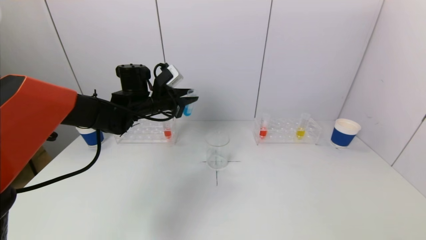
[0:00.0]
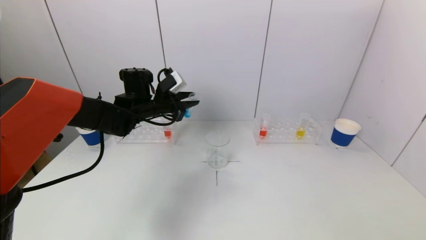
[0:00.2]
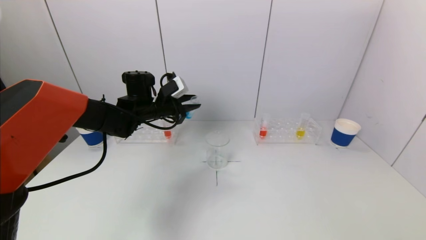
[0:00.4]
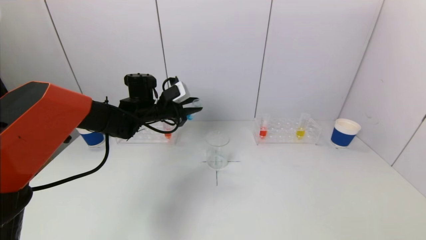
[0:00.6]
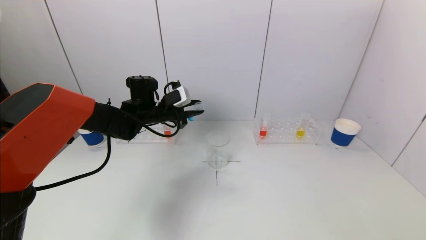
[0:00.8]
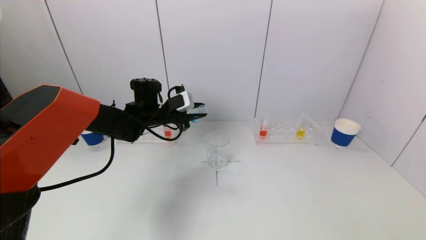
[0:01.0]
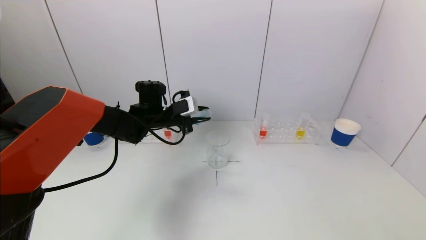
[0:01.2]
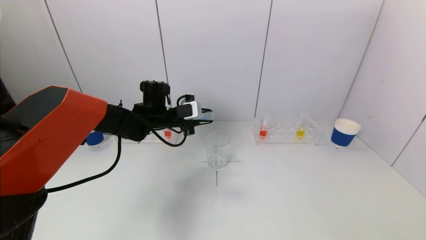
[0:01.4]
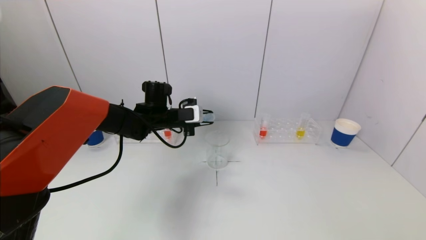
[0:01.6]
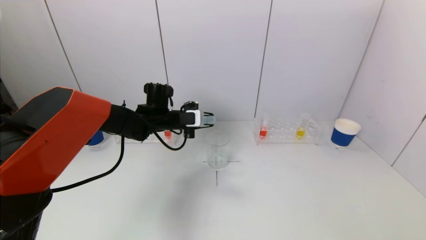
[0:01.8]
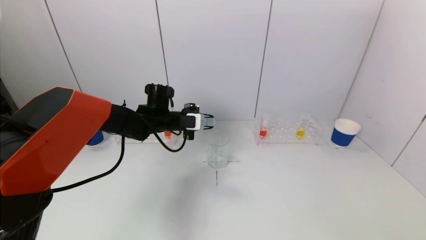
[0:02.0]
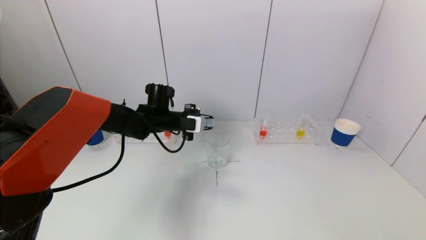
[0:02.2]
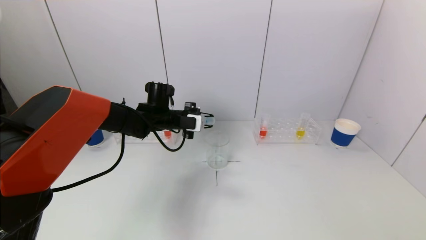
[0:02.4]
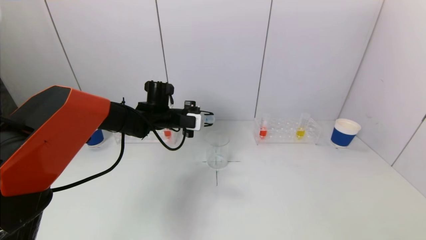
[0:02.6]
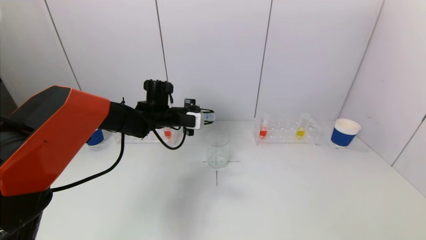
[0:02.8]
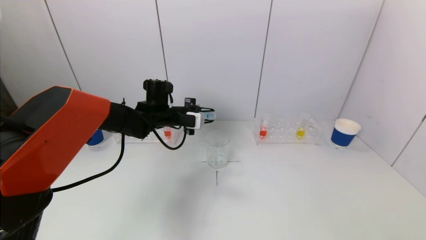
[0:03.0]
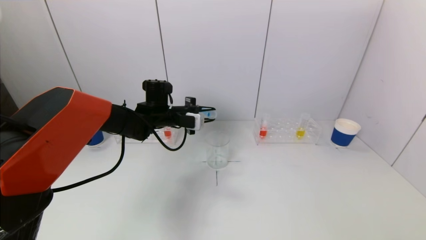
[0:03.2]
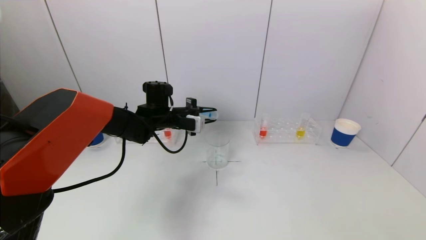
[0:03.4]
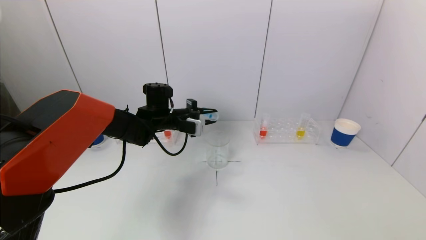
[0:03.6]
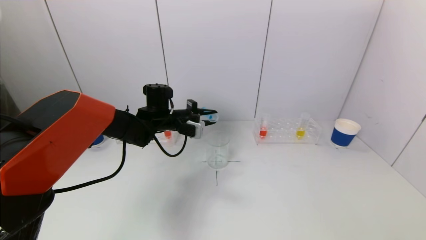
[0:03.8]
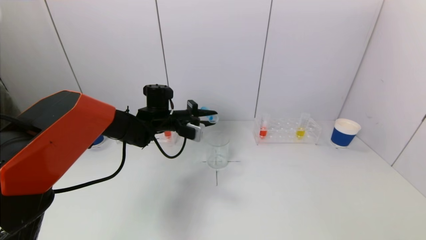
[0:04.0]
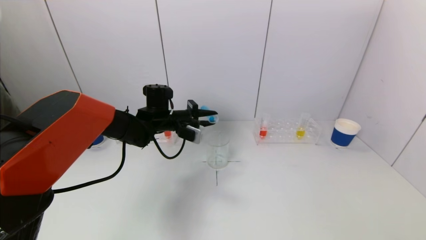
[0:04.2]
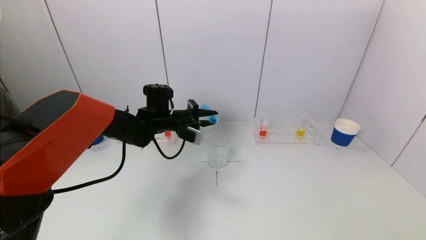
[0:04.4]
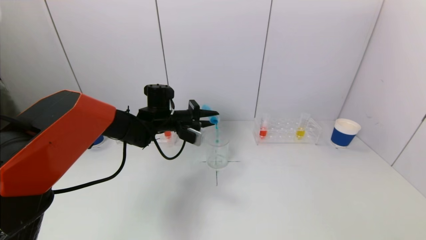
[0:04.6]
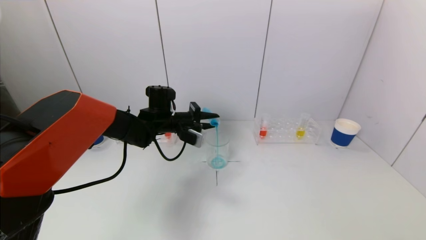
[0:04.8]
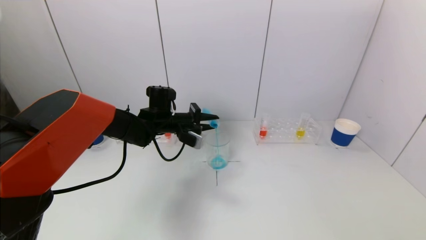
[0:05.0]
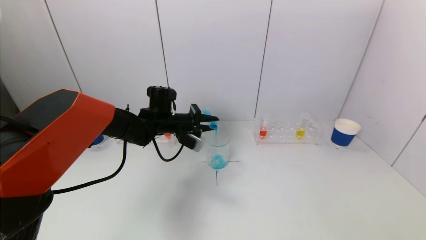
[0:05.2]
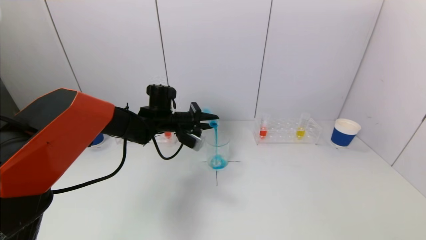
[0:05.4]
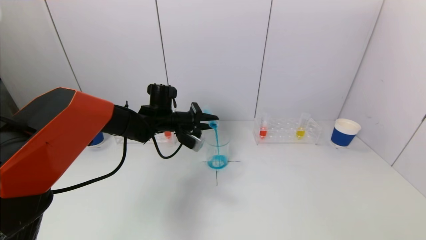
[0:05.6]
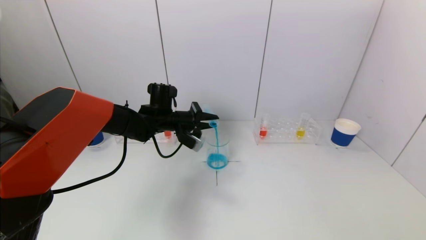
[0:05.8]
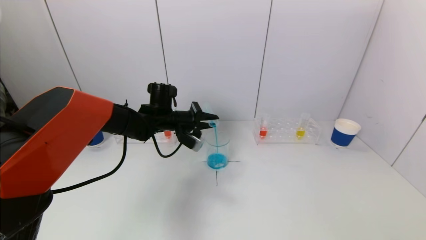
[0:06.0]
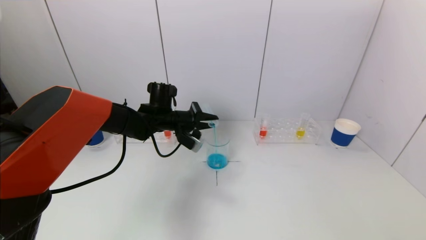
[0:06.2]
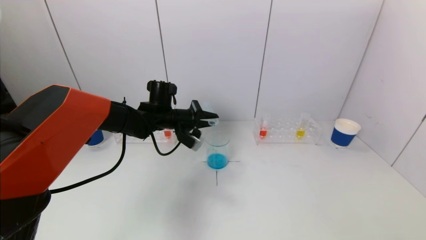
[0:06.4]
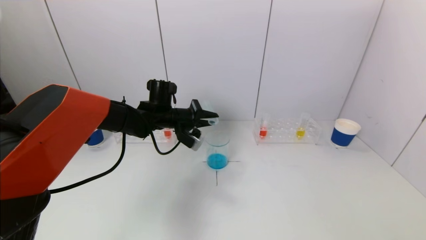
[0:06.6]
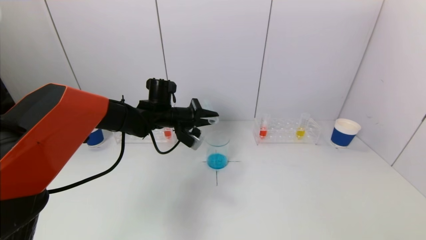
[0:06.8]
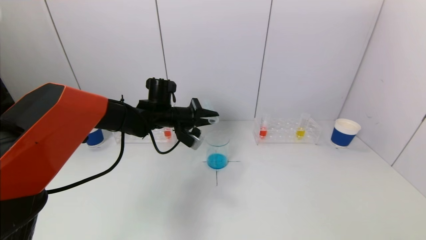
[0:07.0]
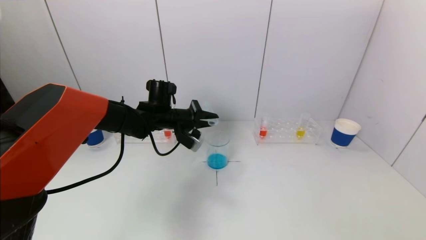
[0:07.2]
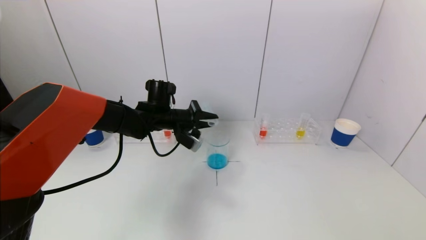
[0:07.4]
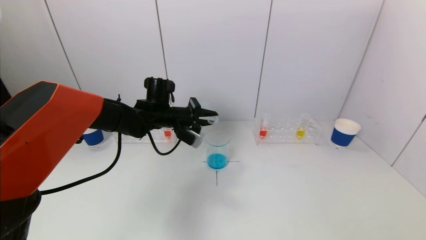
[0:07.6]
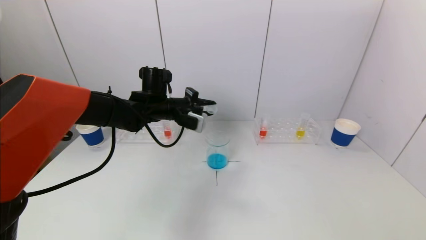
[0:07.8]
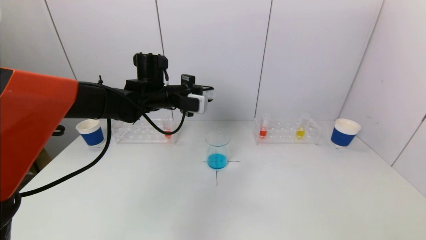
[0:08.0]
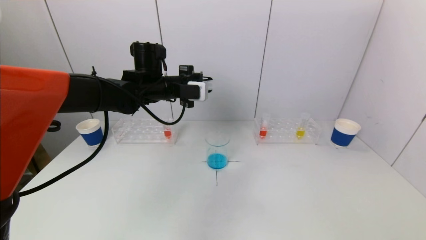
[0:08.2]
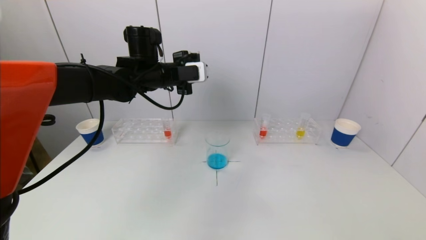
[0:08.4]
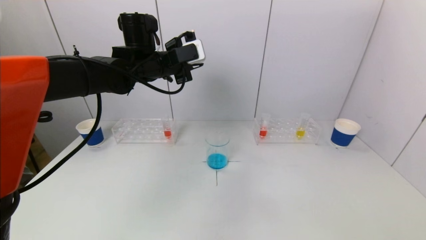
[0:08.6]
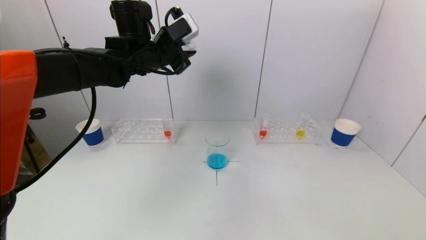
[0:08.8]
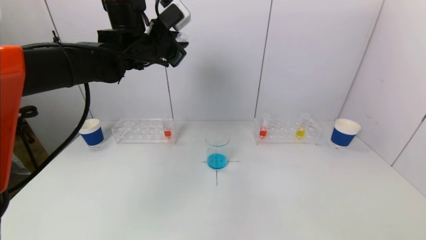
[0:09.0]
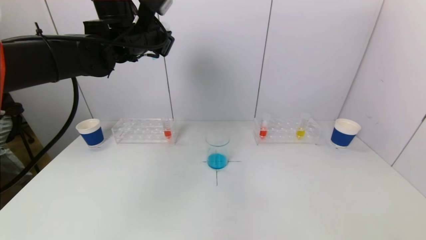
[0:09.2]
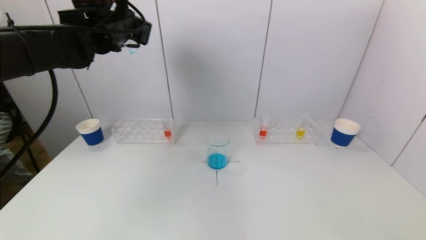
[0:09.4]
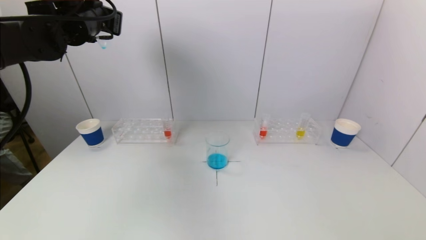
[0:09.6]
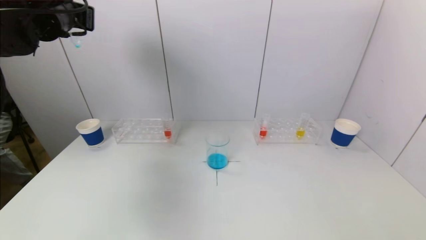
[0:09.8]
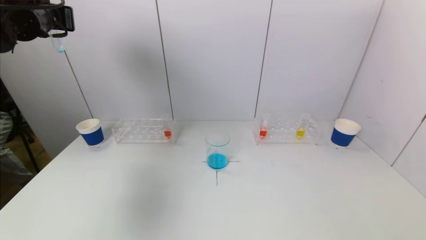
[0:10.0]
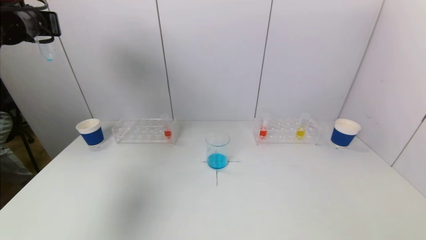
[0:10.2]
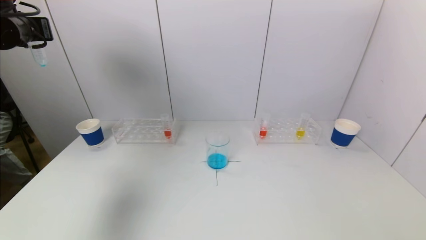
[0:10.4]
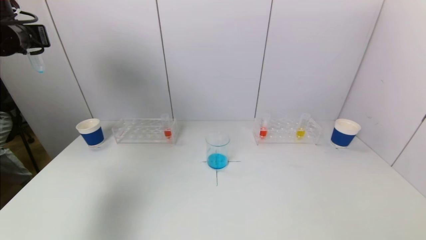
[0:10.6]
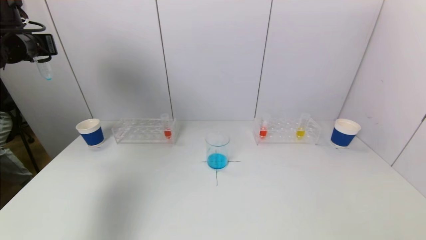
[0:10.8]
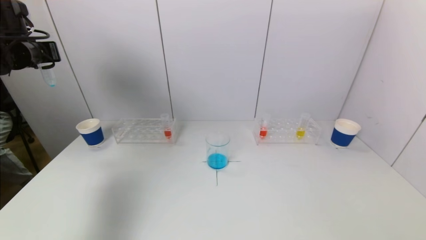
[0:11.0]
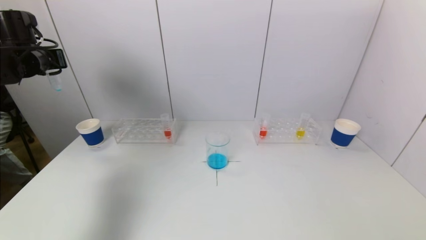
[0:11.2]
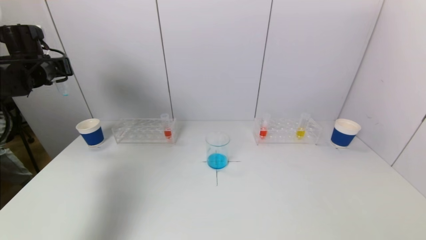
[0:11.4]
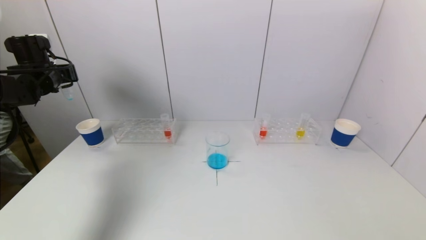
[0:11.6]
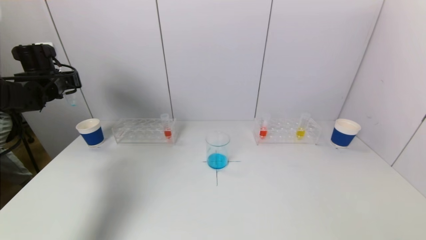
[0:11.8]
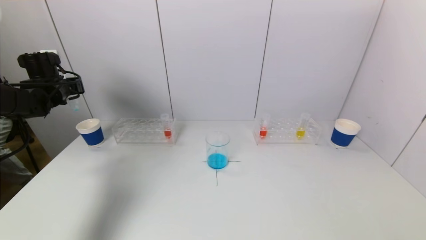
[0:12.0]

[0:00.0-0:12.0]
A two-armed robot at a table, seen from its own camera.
Task of the whole recording: pick up a test tube with pigment on left test tube rack and a test tube with pigment on right test tube rack by grippers and pour them into the beaker.
Step, 0:00.0 to 0:06.8: Pour the blue reagent into the graduated cylinder with the left gripper.
0:00.0 to 0:01.6: The left gripper shifts by roughly 5 cm.
0:01.6 to 0:03.0: The grippers make only small movements.
0:03.0 to 0:04.4: The grippers move only a little.
0:04.4 to 0:07.6: The grippers move only a little.
0:07.6 to 0:09.0: The left gripper shifts about 15 cm upward.
0:09.0 to 0:10.4: The left gripper moves to the left, some 25 cm.
0:10.4 to 0:12.0: The left gripper moves downward and forward, some 15 cm.

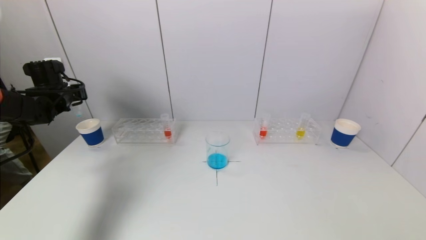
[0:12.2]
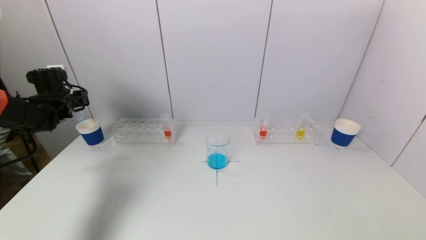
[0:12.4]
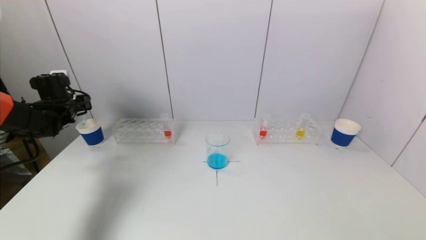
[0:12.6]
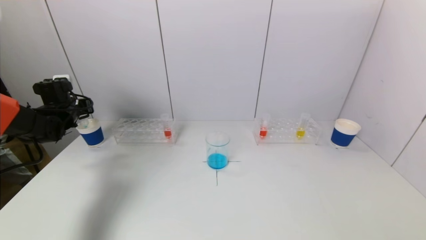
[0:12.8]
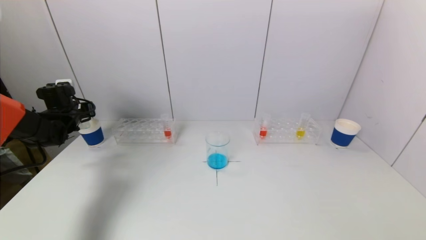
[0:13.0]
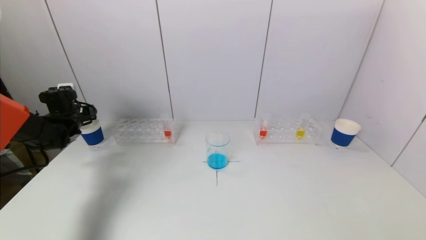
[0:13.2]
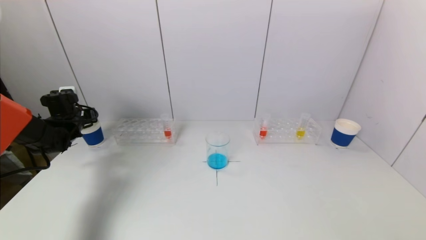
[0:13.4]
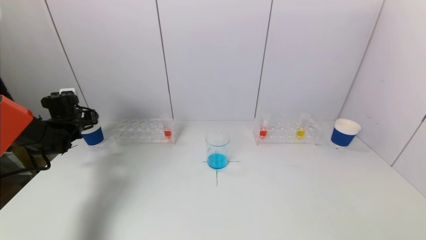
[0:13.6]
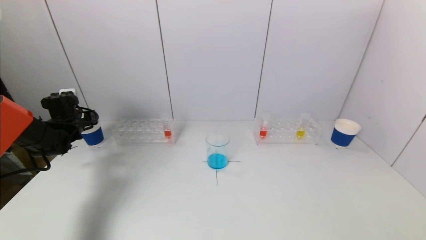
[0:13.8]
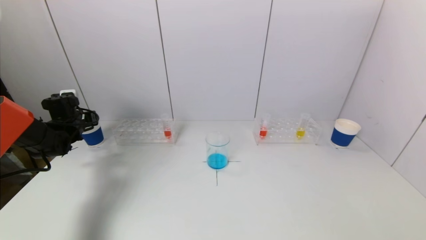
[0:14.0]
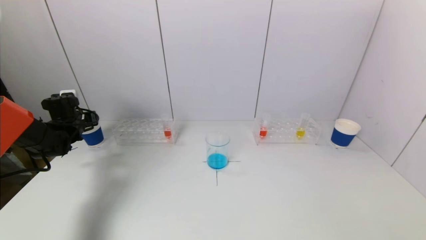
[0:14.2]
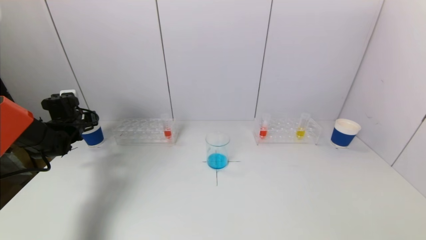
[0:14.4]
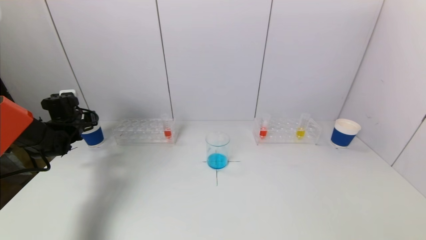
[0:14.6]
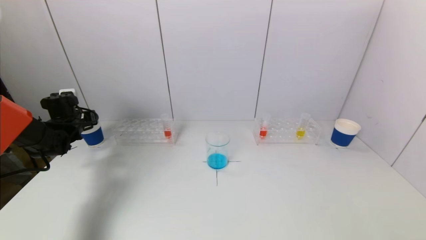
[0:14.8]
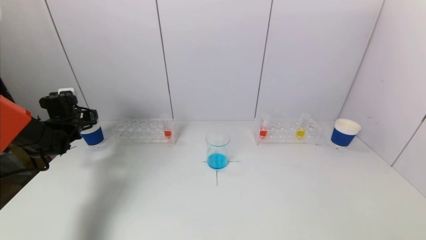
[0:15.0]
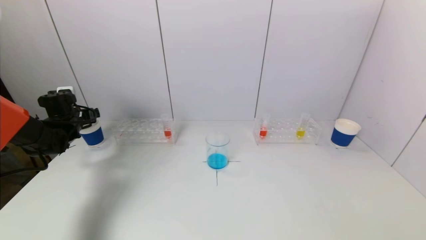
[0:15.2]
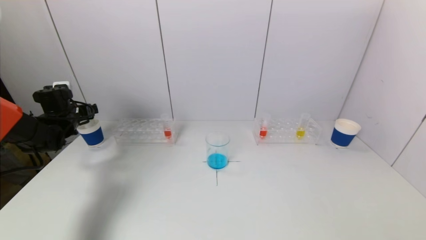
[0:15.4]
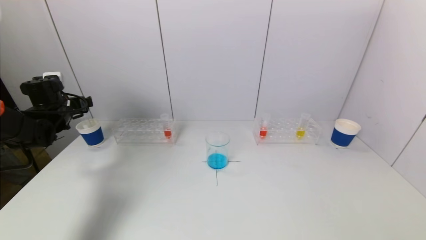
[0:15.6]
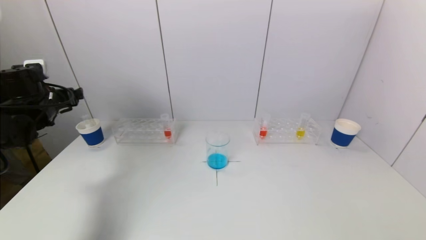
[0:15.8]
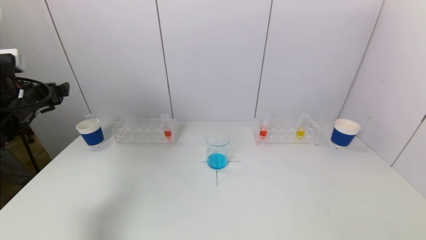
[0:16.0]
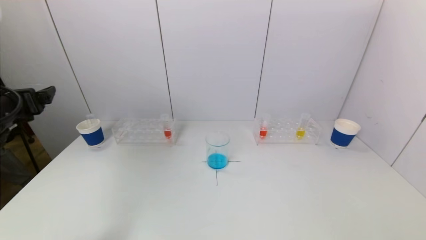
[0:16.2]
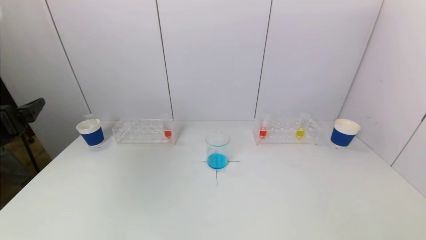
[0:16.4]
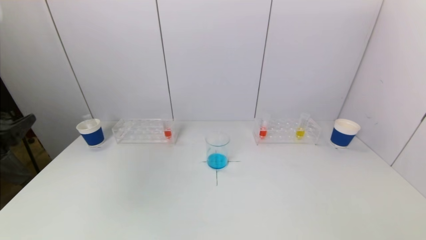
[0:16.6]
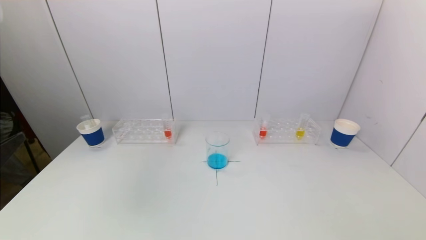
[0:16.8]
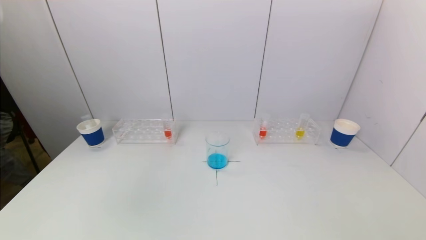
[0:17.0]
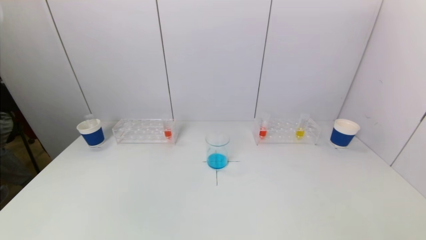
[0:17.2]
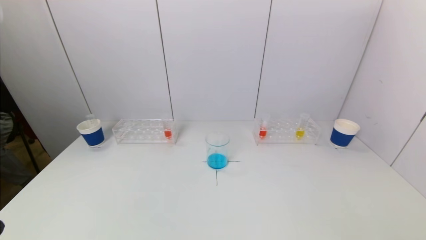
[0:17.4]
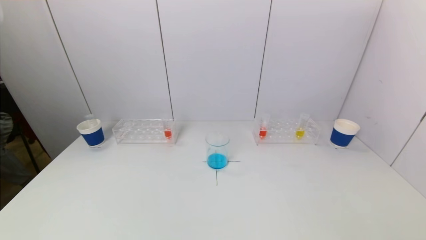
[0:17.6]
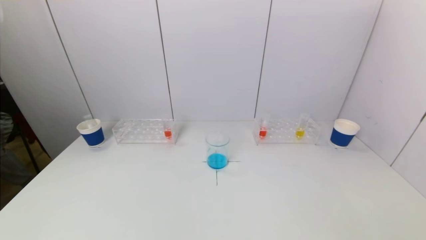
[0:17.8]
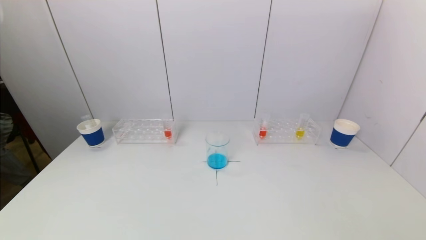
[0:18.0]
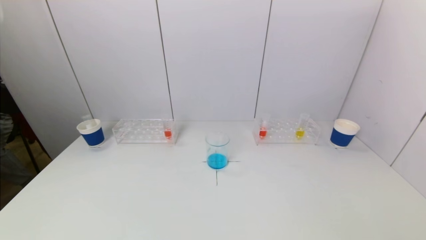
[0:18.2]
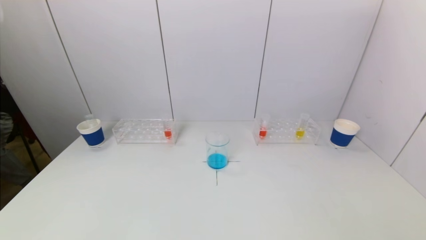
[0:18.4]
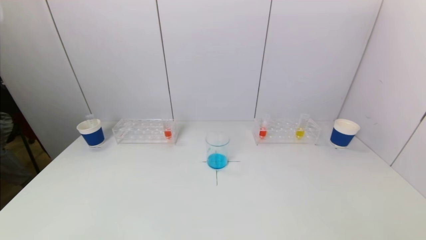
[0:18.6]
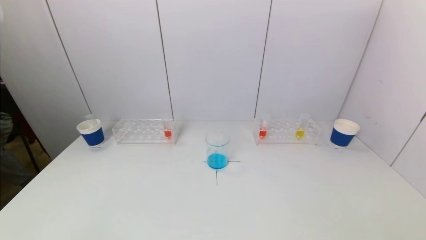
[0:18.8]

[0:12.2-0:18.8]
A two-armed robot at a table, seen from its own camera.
Task of the whole recording: pick up a test tube with pigment on left test tube rack and a test tube with pigment on right test tube rack by grippers and pour them into the beaker.
Step, 0:12.2 to 0:15.2: Place the test tube into the paper cup with the left gripper.
0:12.2 to 0:13.8: The left gripper travels downward by some 10 cm.
0:13.8 to 0:15.4: The left gripper opens up.
0:15.4 to 0:17.2: The left gripper shifts some 40 cm backward.
